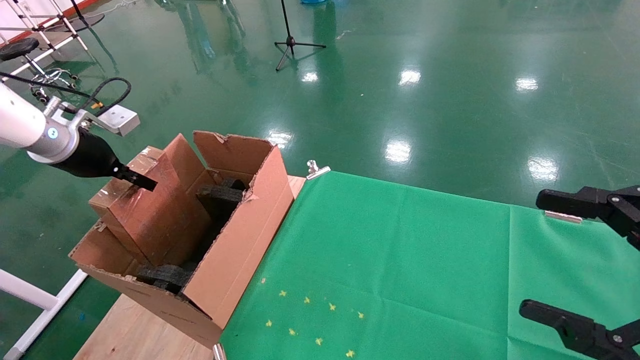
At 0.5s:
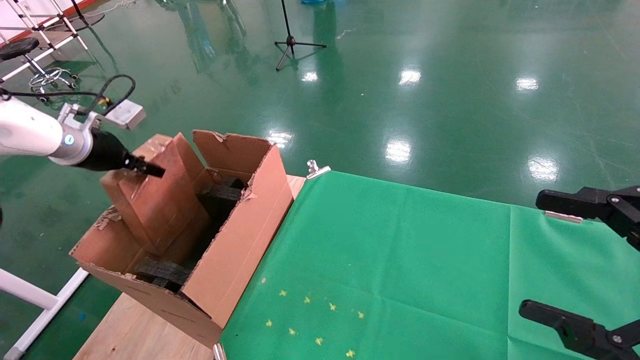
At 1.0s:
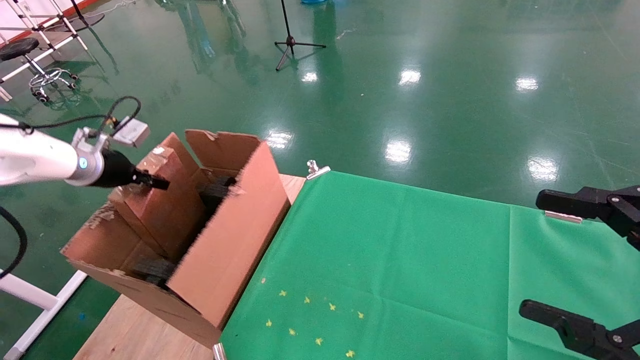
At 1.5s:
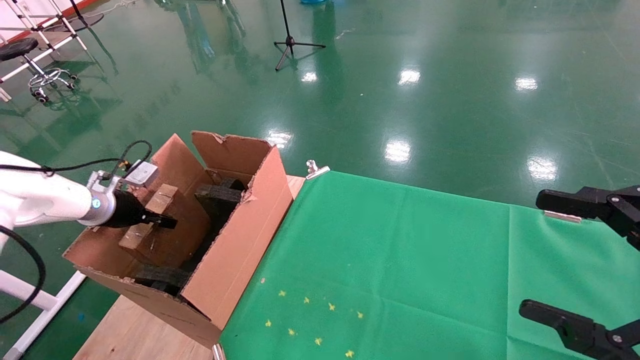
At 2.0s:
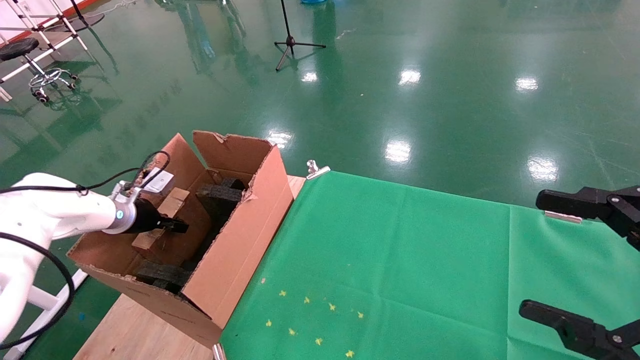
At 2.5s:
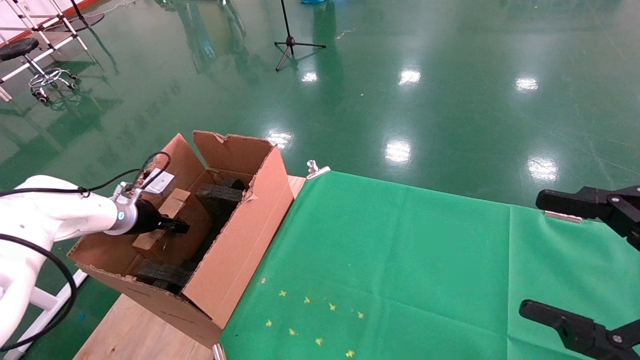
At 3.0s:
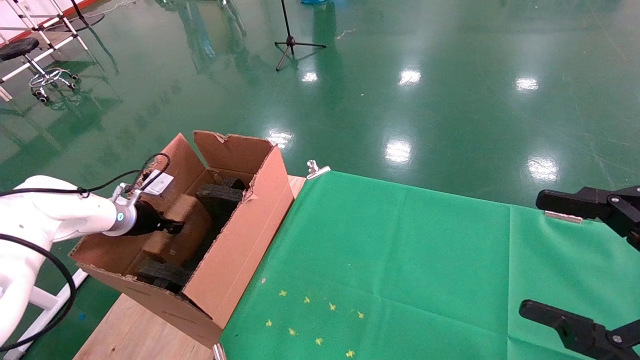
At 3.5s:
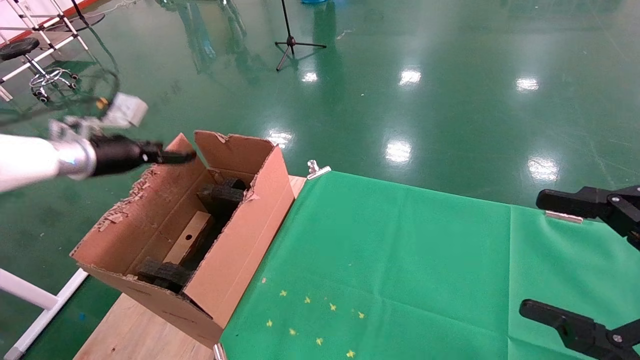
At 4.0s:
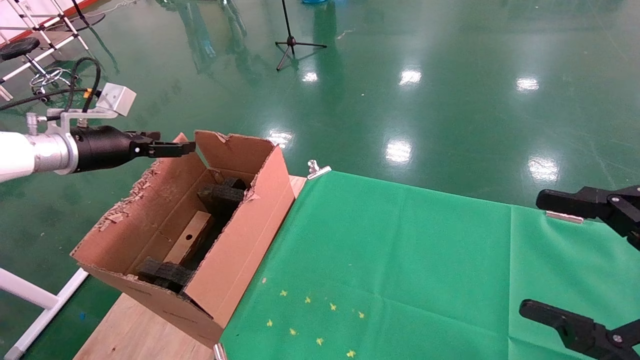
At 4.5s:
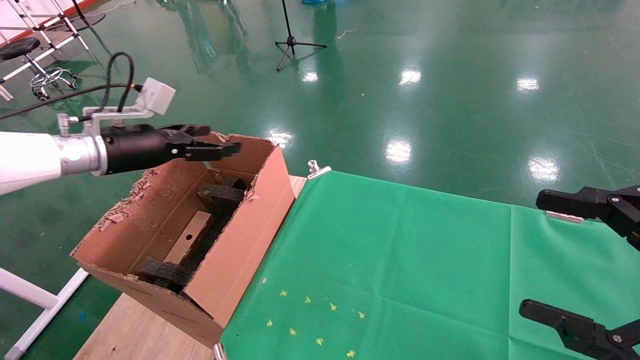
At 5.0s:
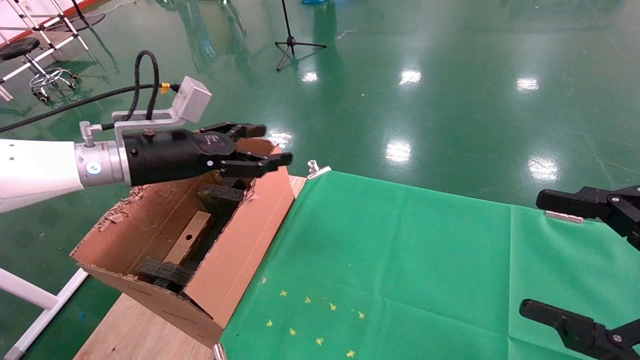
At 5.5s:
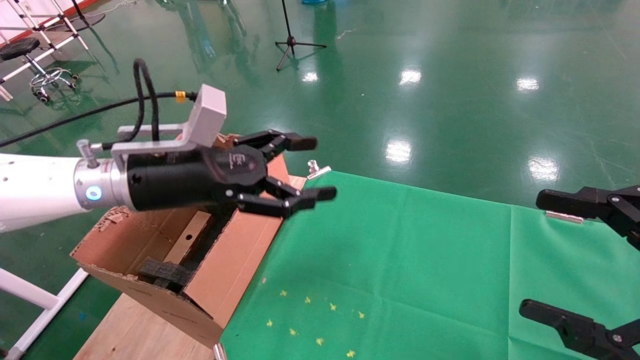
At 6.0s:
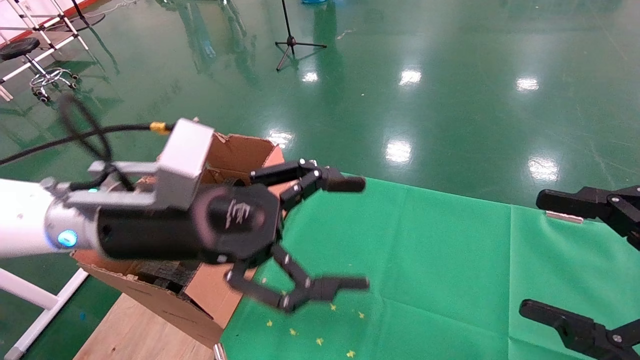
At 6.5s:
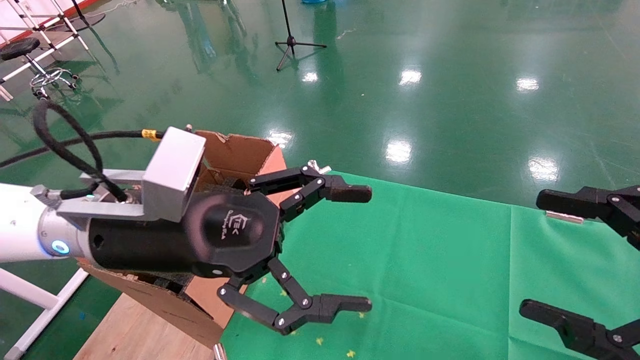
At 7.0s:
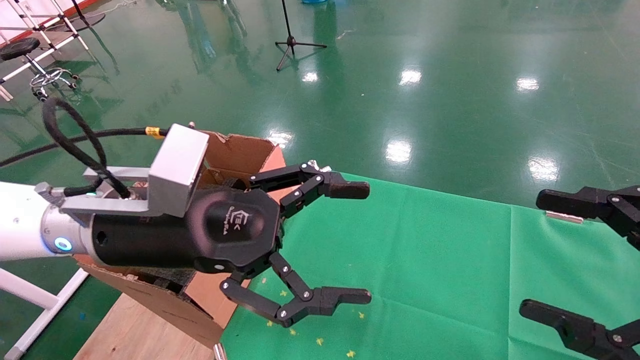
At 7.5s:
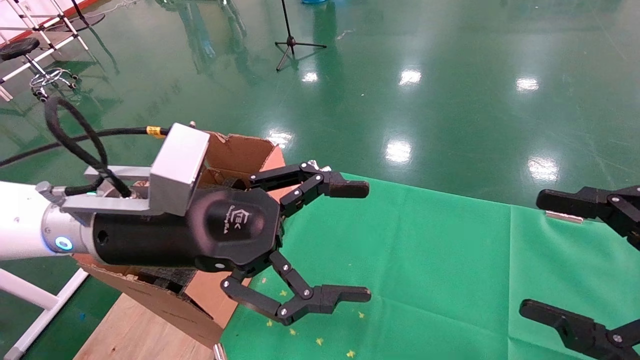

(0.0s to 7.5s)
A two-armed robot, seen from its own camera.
Task of the whole recording: using a robotic arm to pick up a cardboard box and palace it the carton.
Step, 0.0s - 3.5s: Place the mouse and the power cord paper box into the container.
0.0s - 2.0s: The left gripper shifts about 15 cm downward.
2.0s - 4.0s: The left gripper goes about 15 cm upward, and opens up.
4.0s - 5.5s: The left gripper moves to the right, roughly 20 cm.
5.5s - 7.5s: The left gripper heads backward, covering approximately 5 cm.
